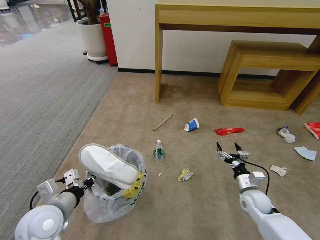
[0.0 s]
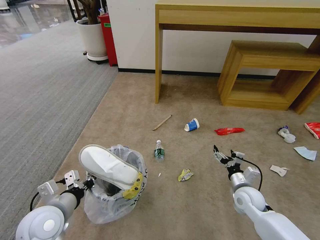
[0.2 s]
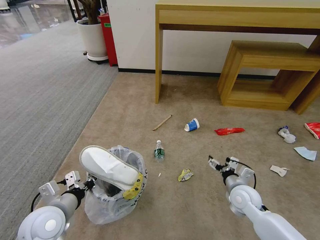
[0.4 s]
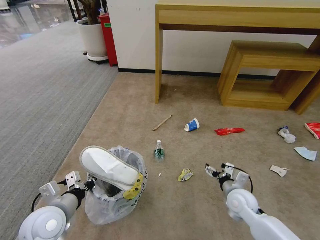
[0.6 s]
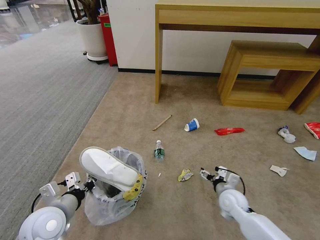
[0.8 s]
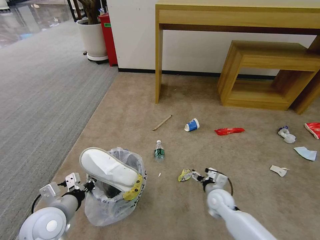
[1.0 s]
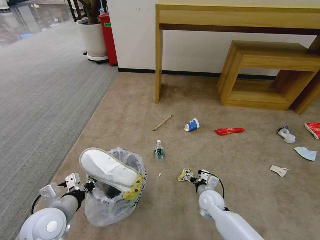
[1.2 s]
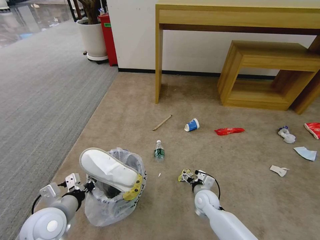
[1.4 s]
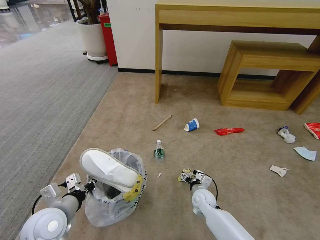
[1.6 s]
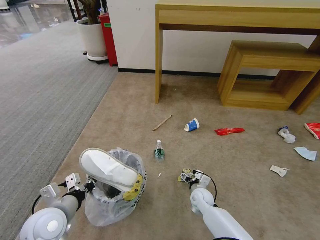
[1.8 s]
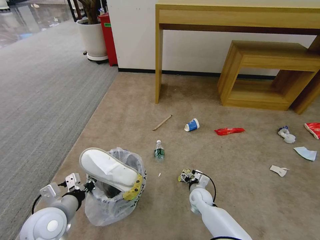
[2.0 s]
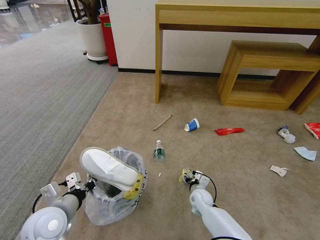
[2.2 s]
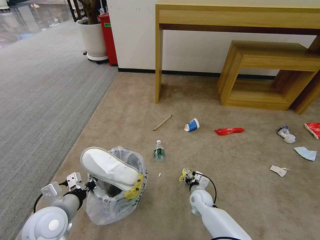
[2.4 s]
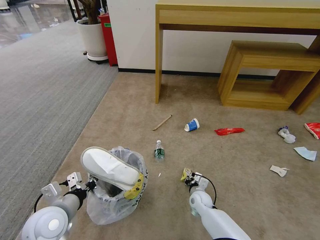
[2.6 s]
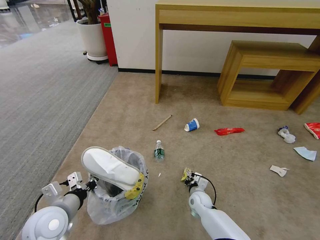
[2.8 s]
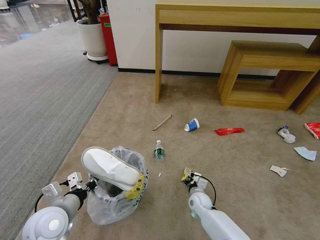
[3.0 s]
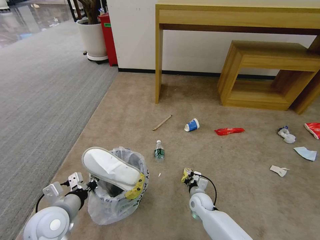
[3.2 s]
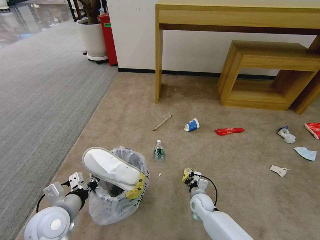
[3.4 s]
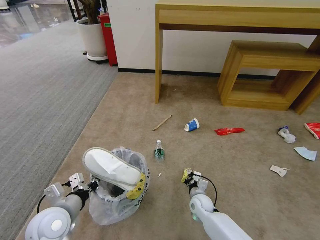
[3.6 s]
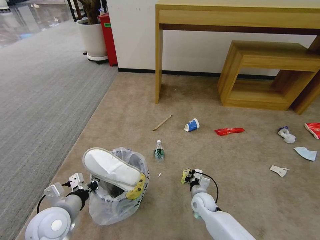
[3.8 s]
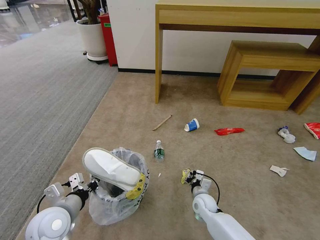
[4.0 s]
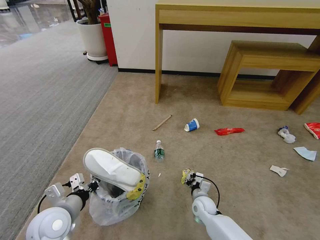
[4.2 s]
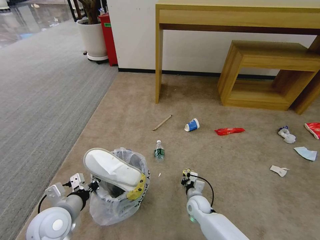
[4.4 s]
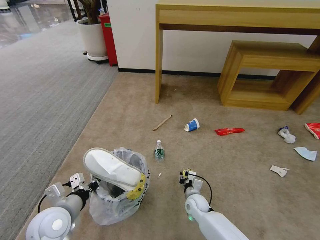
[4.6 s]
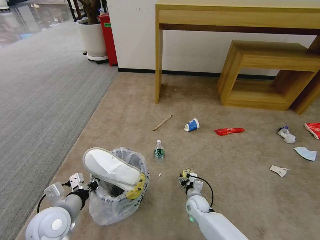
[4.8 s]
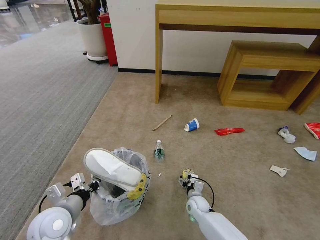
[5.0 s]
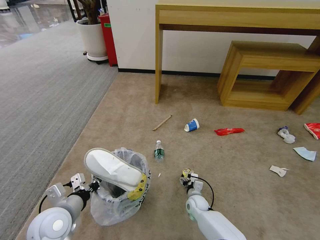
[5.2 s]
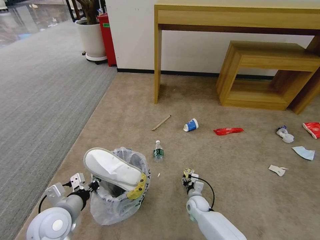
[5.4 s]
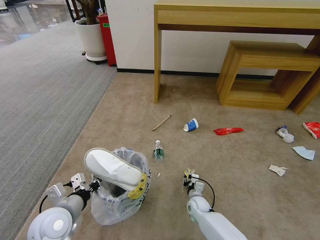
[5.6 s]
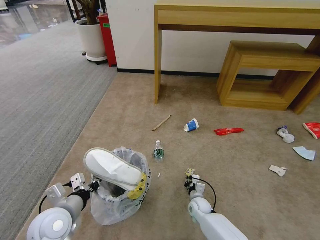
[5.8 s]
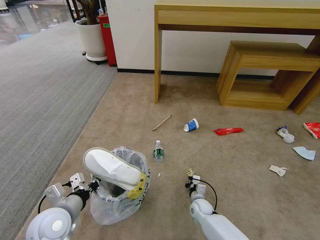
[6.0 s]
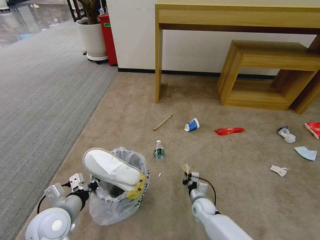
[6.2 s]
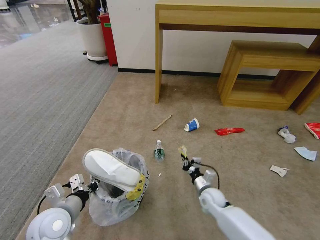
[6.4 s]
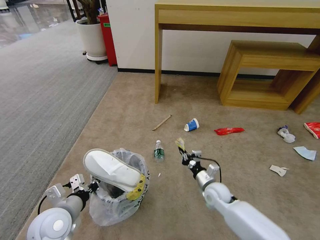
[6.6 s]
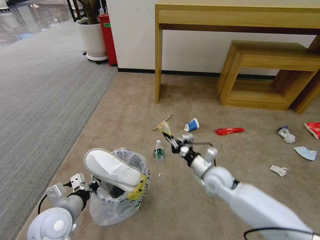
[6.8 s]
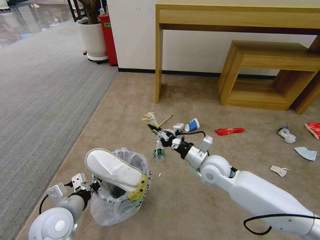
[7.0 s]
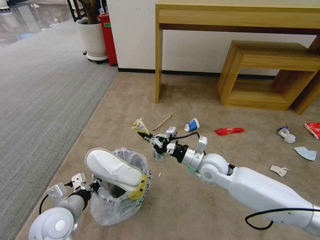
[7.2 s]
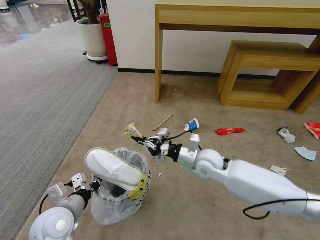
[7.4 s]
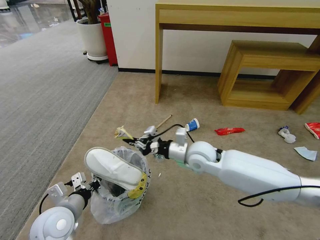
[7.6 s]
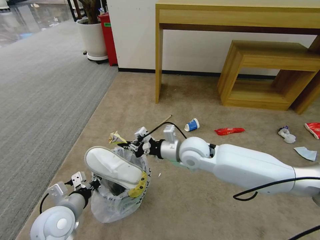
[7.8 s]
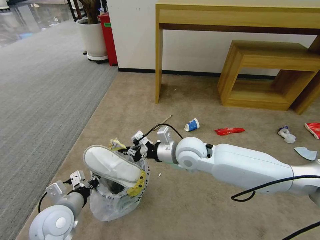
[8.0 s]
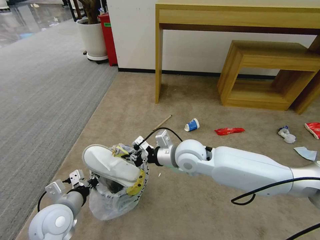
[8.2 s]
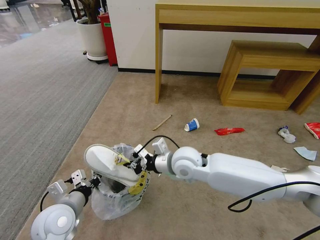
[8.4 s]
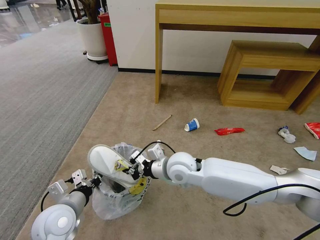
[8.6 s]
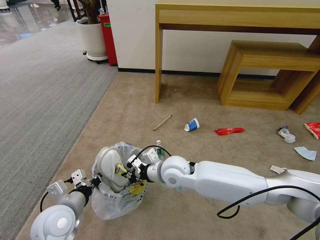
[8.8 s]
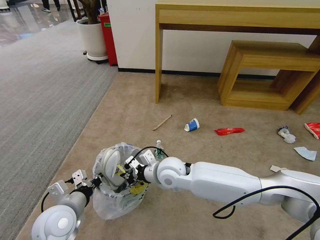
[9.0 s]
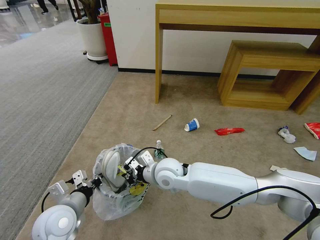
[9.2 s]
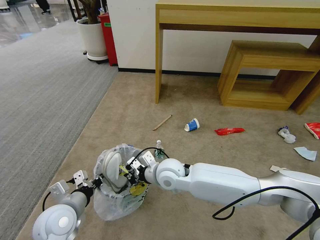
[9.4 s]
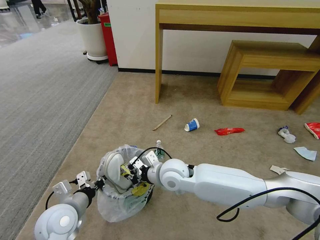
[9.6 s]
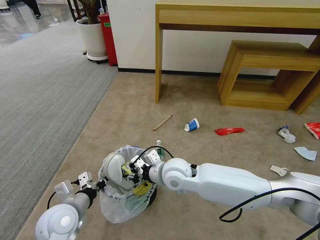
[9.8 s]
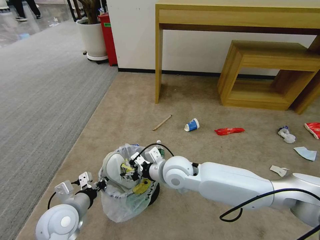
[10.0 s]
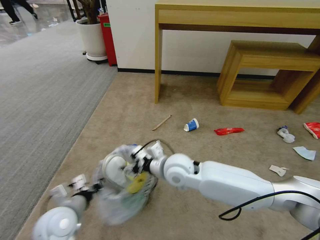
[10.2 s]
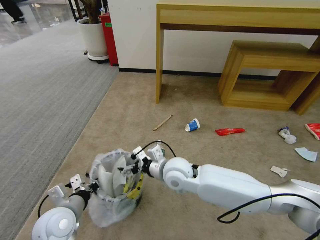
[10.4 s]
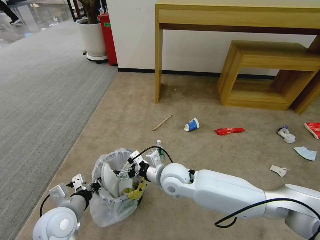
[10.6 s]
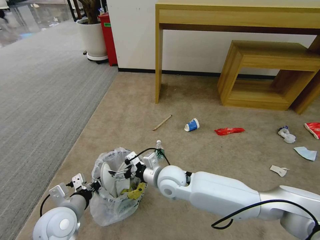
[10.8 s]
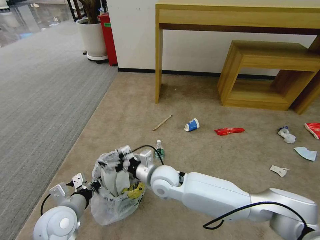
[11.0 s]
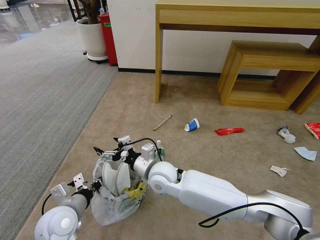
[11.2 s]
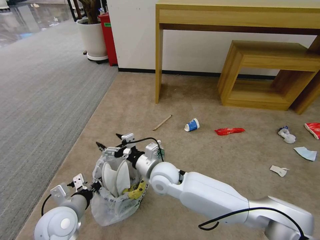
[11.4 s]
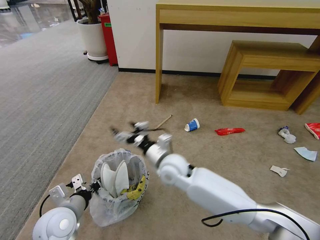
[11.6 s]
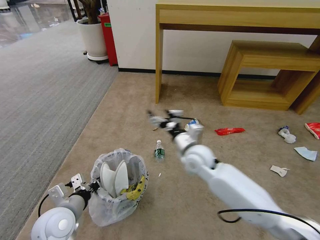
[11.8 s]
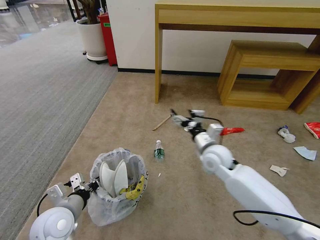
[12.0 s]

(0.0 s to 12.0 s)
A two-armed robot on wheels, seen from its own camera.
Task of the whole recording: Pick up the trash bin and place the garbage on the floor into it.
0.0 s - 1.6 s: The right gripper moves to the left and downward, some 20 cm.
1.6 s - 3.0 s: The right gripper closes up.
3.0 s - 4.4 s: The grippers make only small movements.
4.4 s - 6.0 s: The right gripper shifts by about 5 cm, and opens and closes again.
6.0 s - 7.6 s: The right gripper heads upward, covering about 35 cm.
7.6 s - 9.0 s: The right gripper is displaced to the left by roughly 10 cm.
9.0 s - 10.4 s: The right gripper opens.
10.4 s - 12.0 s: The right gripper goes roughly 15 cm to the right.

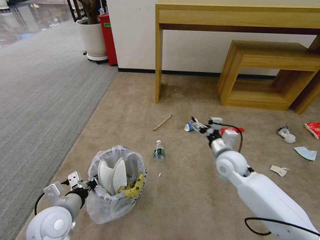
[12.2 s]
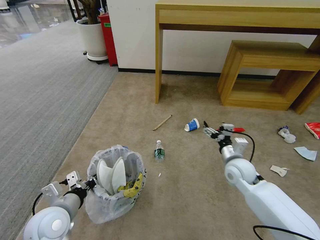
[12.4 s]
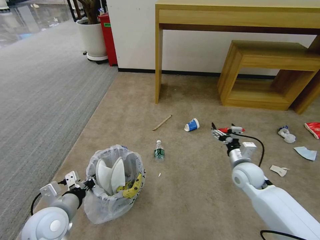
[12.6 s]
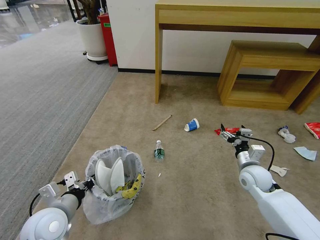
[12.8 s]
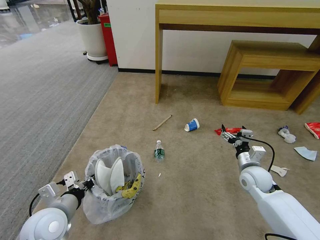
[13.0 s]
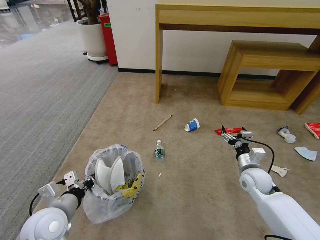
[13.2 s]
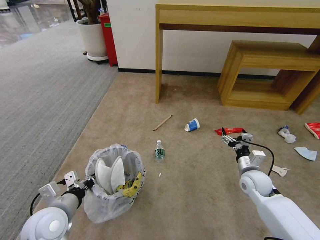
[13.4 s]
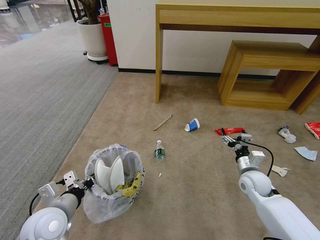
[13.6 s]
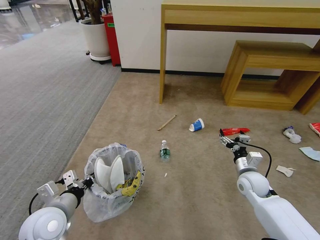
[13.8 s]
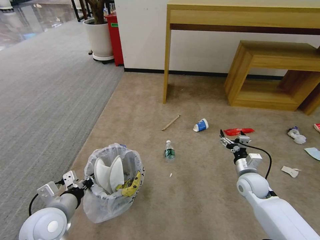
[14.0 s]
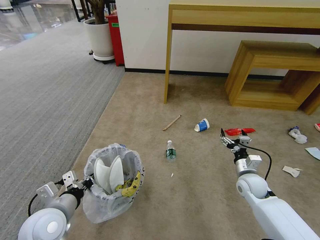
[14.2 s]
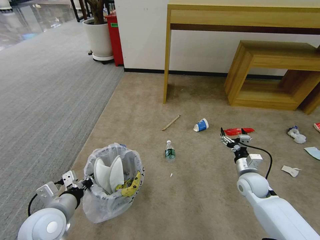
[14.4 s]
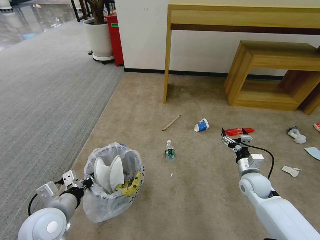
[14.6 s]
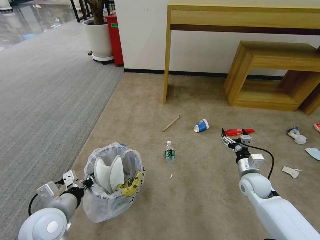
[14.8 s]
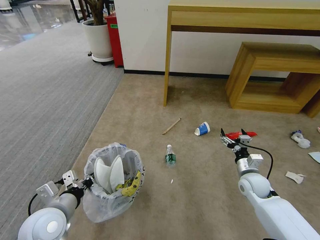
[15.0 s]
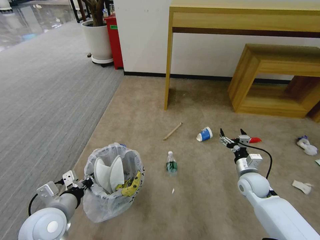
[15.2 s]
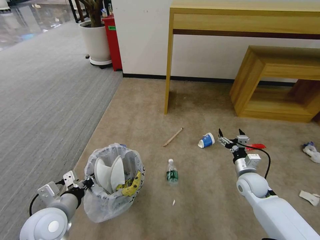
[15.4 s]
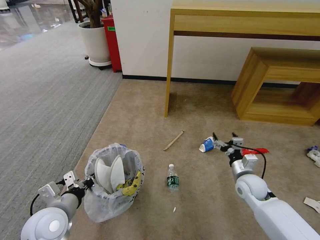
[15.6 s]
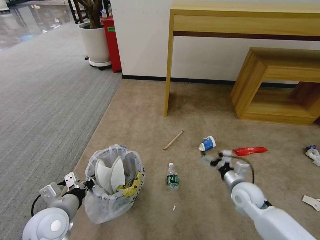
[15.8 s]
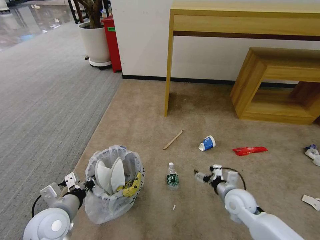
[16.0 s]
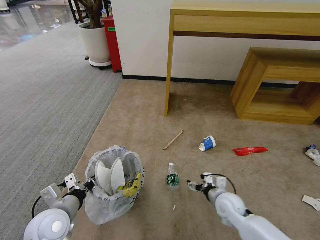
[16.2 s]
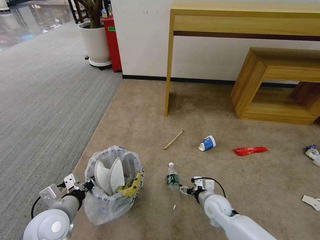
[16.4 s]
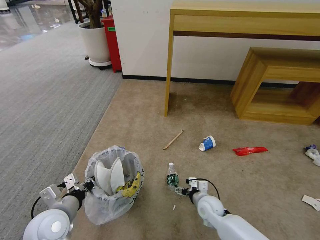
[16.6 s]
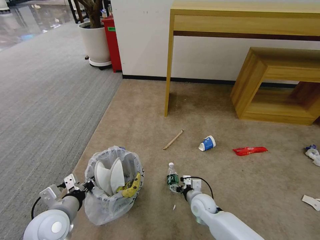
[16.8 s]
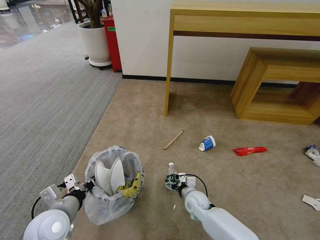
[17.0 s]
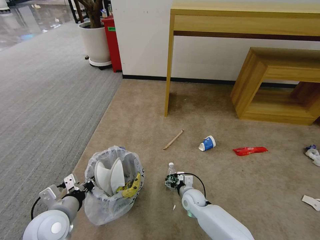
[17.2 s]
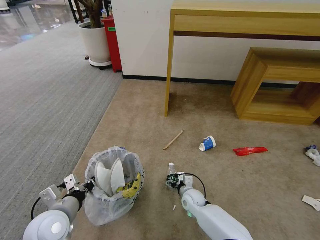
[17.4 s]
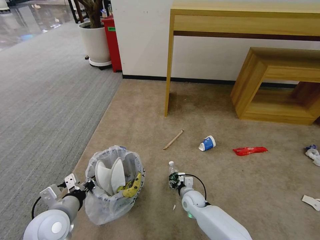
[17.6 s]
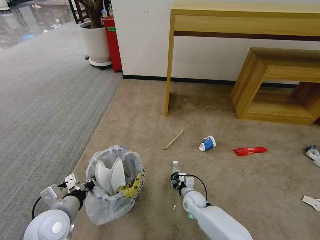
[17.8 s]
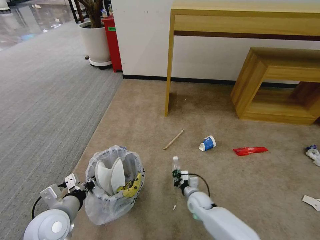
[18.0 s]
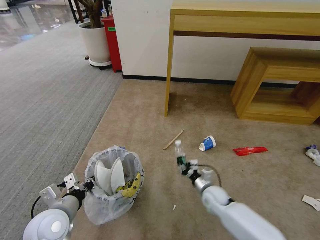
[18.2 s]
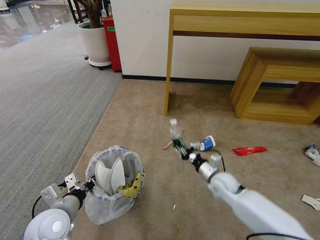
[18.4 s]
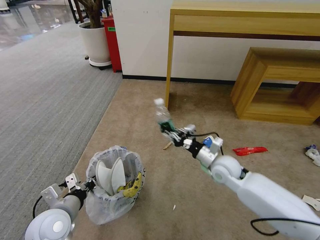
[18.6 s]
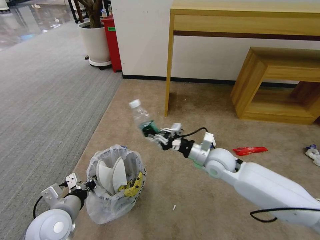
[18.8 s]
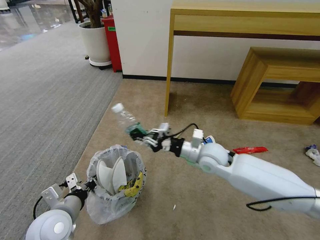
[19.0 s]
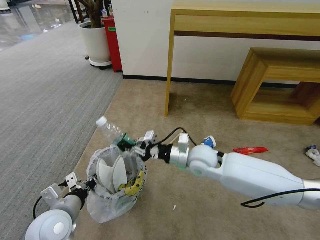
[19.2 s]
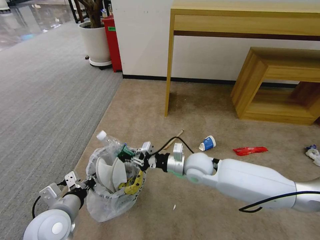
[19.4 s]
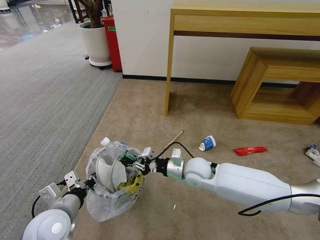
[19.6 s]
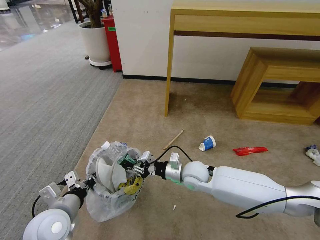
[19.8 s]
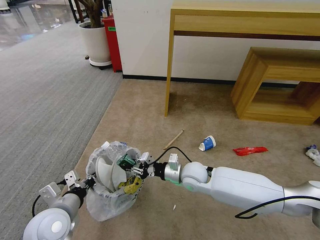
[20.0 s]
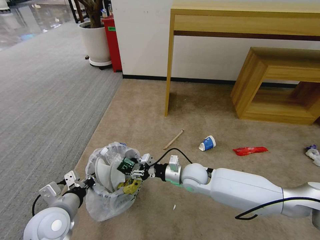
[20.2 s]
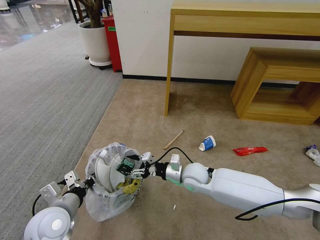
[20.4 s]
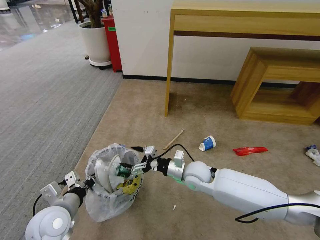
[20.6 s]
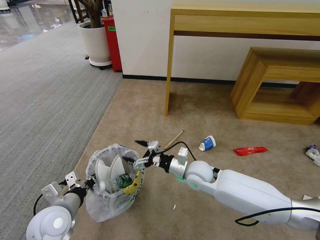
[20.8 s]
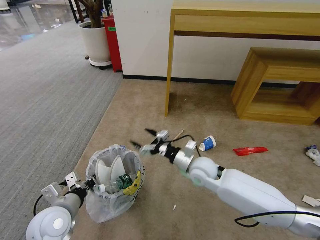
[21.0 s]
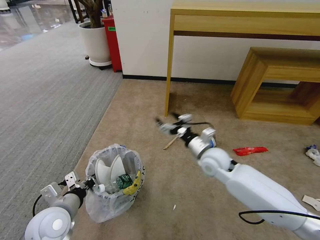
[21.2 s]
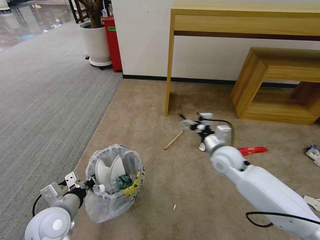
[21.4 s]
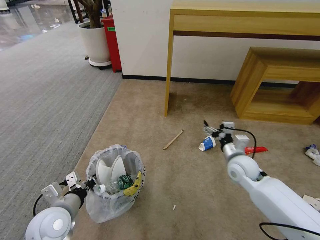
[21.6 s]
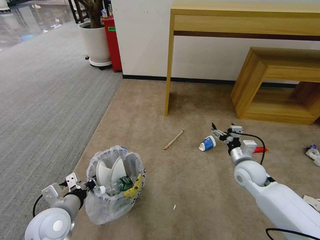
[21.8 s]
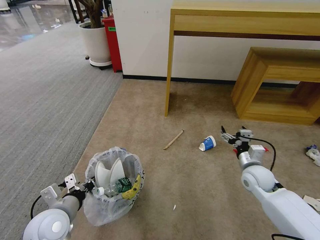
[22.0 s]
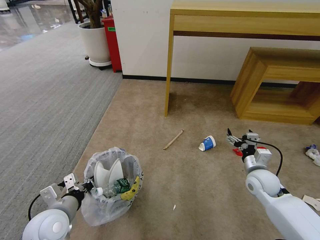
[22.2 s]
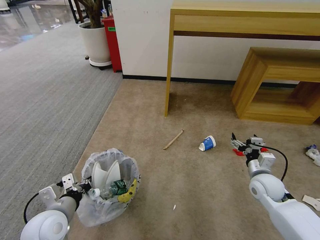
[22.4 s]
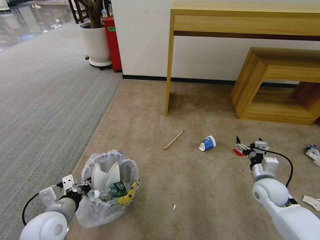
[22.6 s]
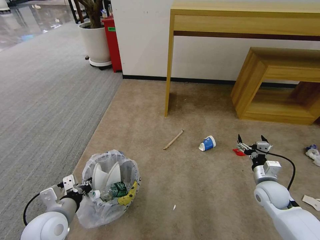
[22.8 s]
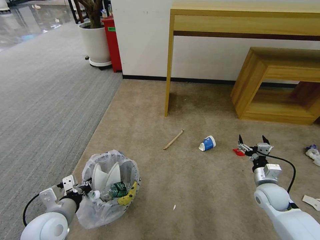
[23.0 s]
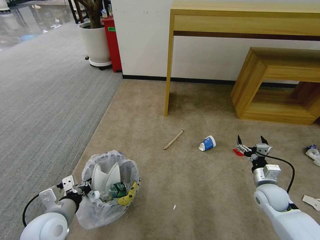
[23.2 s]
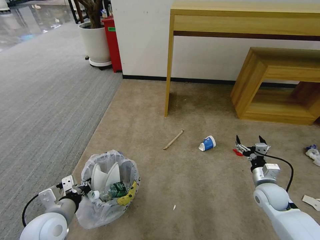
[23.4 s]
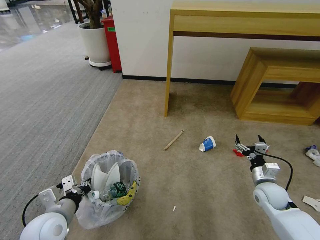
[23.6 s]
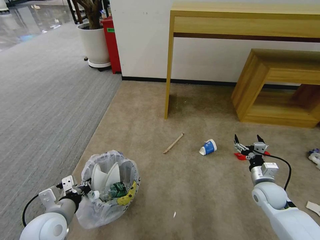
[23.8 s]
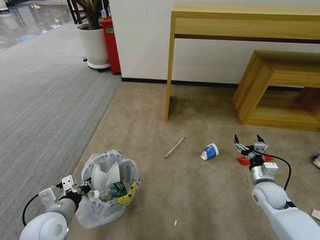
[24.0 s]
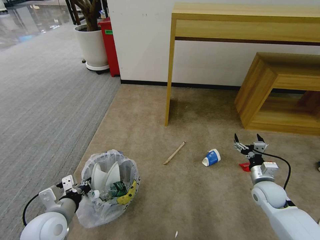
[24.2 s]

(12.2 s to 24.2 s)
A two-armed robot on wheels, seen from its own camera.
Task of the whole recording: Pick up the trash bin and place the garbage on the floor into it.
12.2 s - 13.8 s: The right gripper is displaced to the right and downward by approximately 15 cm.
13.8 s - 15.2 s: The grippers move only a little.
15.2 s - 16.6 s: The right gripper travels to the left and downward by about 15 cm.
16.6 s - 18.2 s: The right gripper goes to the left and returns, roughly 5 cm each way, and closes.
18.2 s - 19.8 s: The right gripper moves upward and to the left, some 15 cm.
19.8 s - 21.2 s: The right gripper moves to the right, about 5 cm, and opens.
21.2 s - 22.6 s: The right gripper moves to the right and downward, some 20 cm.
22.6 s - 24.2 s: The grippers make only small movements.
